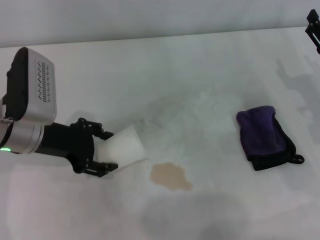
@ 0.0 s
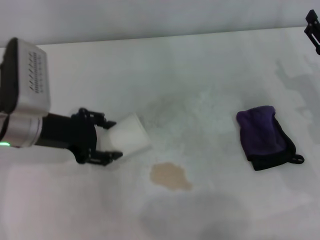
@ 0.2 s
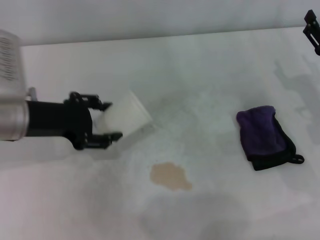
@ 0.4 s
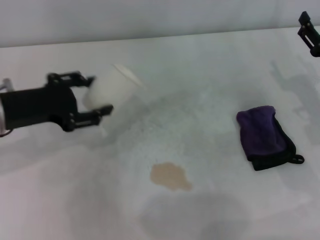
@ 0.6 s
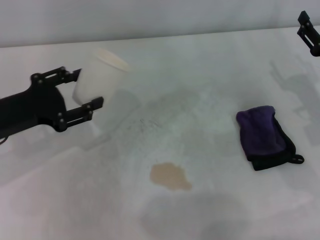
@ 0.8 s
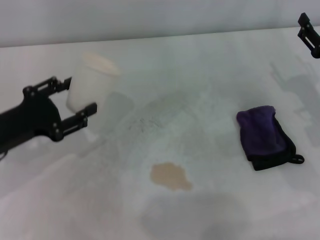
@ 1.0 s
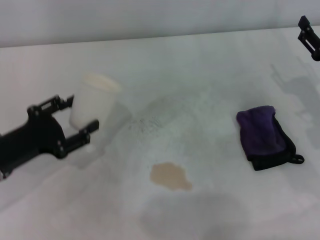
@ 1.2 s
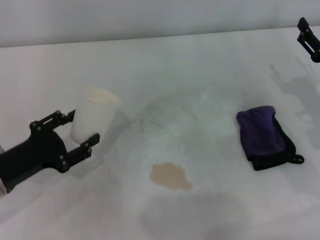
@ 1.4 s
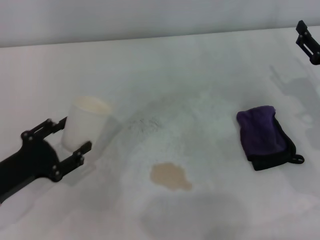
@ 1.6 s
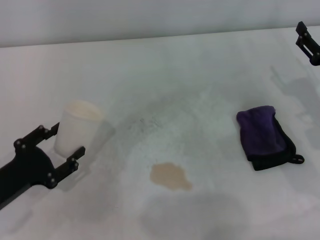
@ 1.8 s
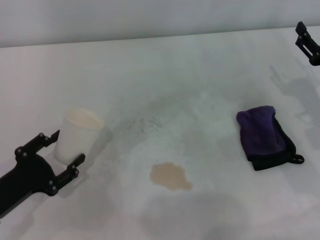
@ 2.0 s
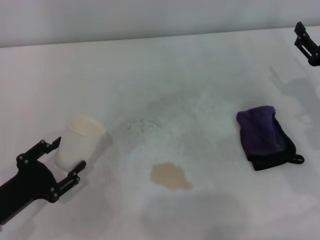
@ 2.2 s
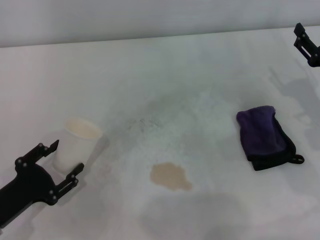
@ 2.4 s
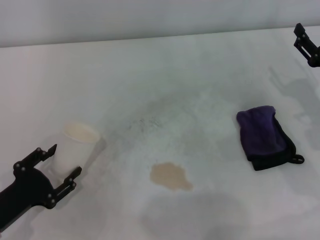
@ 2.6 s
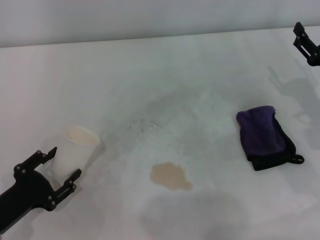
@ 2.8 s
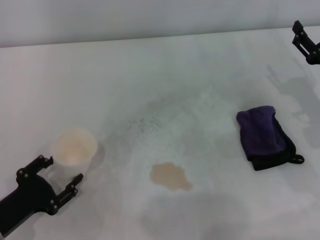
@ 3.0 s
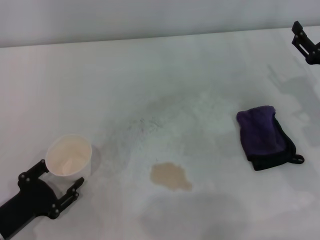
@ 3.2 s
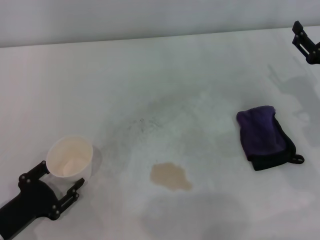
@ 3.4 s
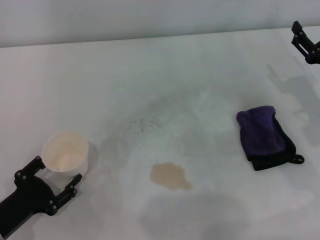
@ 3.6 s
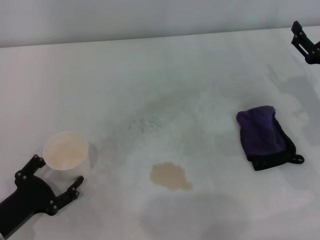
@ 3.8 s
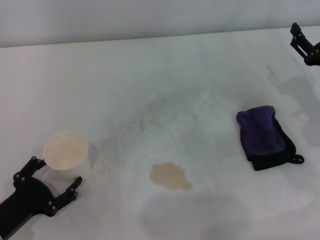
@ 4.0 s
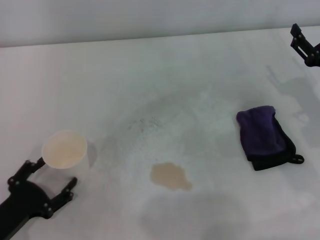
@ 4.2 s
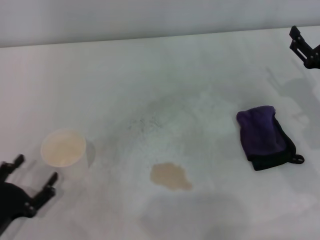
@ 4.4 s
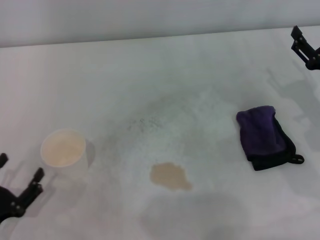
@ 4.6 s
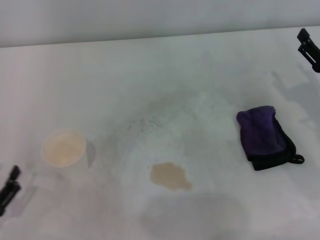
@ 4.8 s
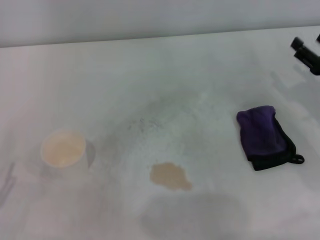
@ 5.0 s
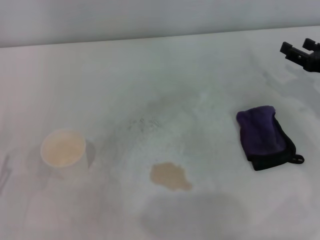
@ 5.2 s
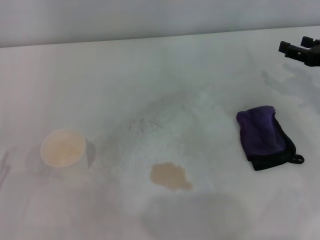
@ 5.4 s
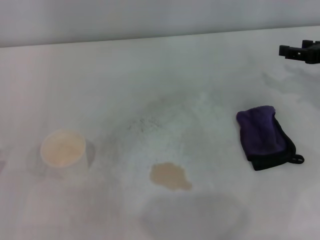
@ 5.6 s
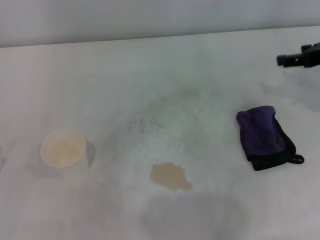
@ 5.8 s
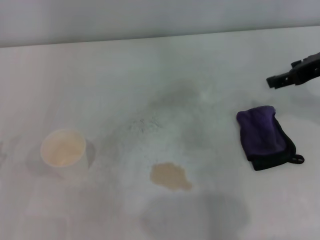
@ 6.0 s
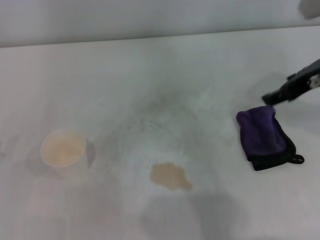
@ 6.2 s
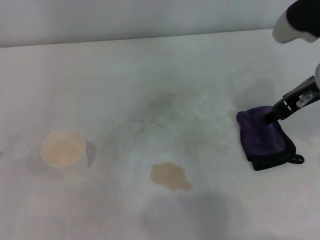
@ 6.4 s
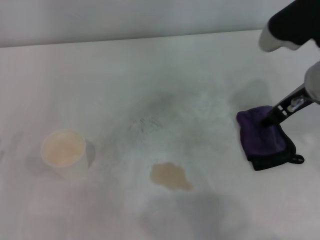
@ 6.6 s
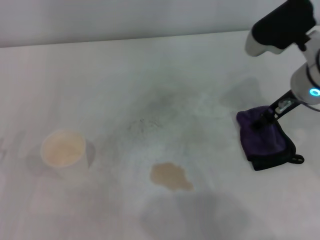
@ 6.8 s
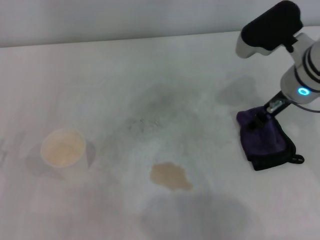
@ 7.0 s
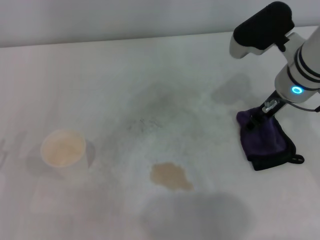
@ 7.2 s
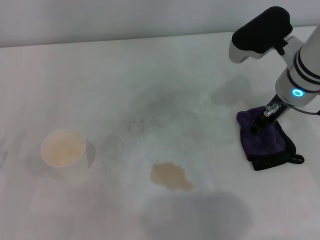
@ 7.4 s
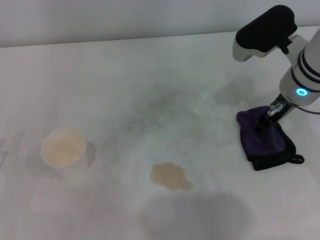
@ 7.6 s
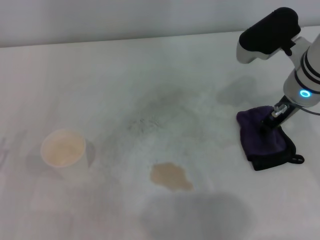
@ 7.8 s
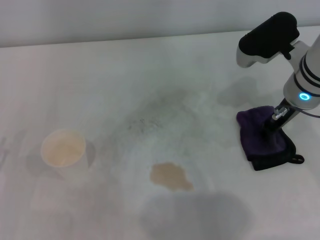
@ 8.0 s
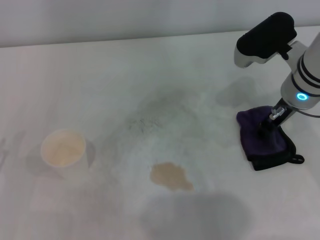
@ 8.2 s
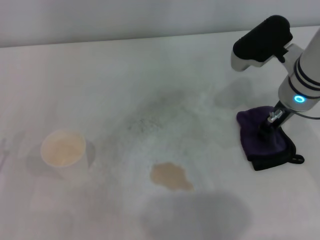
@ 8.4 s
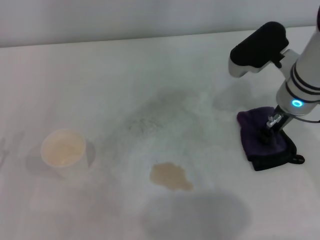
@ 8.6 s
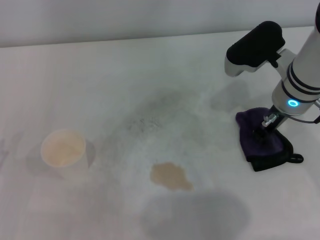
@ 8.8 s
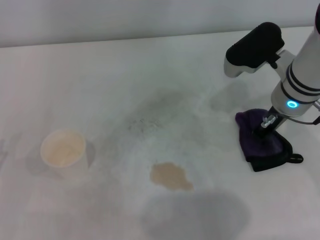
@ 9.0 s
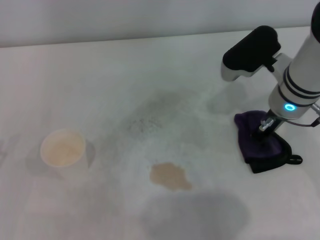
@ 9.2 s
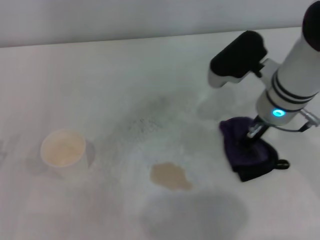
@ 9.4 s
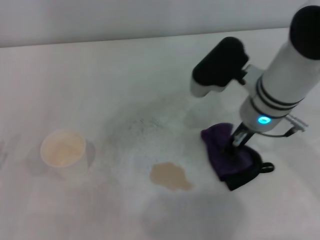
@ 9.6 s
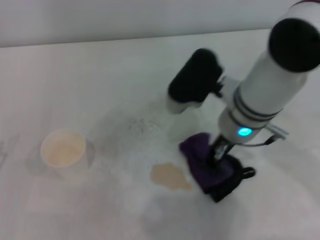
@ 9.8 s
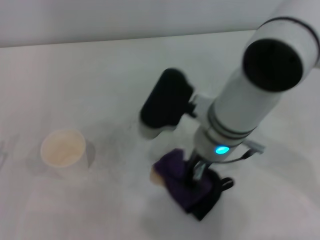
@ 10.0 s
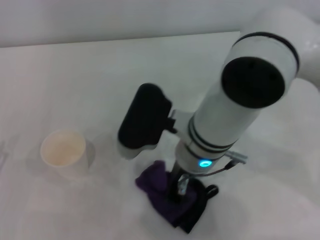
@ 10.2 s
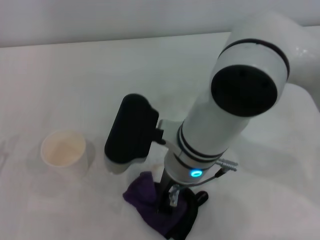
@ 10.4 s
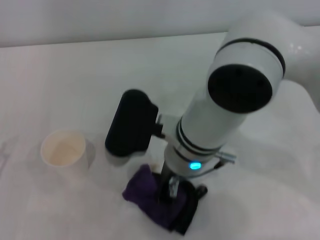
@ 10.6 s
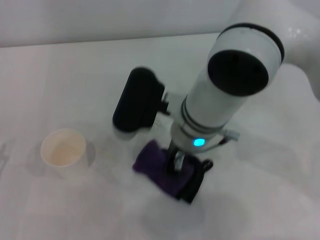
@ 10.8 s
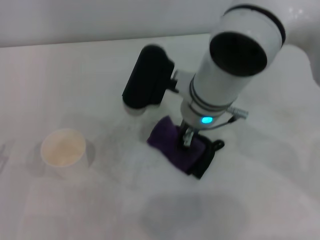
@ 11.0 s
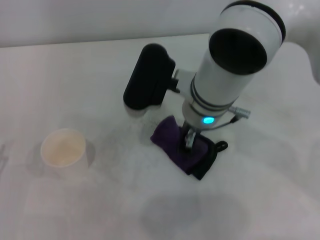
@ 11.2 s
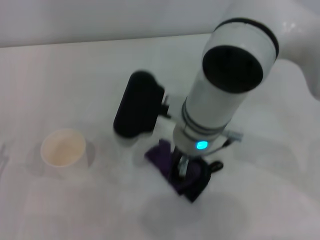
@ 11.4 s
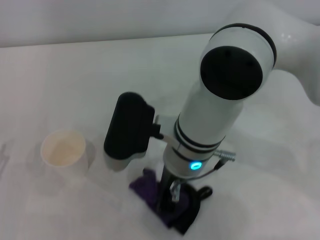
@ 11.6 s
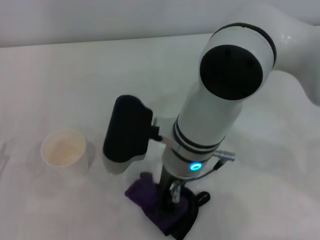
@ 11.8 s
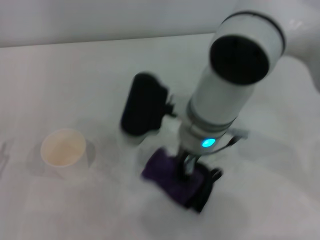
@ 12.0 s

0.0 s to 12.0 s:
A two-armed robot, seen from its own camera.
Step, 0.0 to 3.8 s: Stand the paper cup upright with the left gripper.
Step, 4.0 to 8.6 s: Grasp the rag with the right gripper.
0.0 to 1.6 s: The left gripper travels backward, downward and to the left by some 15 cm, and closes its fingers.
1.6 to 3.0 s: The left gripper moves some 5 cm.
3.0 to 4.4 s: The left gripper opens.
4.4 to 6.0 s: The right gripper heads upward, covering approximately 15 cm, while the left gripper changes place by about 5 cm.
6.0 to 7.6 s: The right gripper moves to the left, roughly 10 cm.
7.6 to 9.0 s: The right gripper closes.
9.0 to 10.4 s: The right gripper goes about 20 cm to the left and backward.

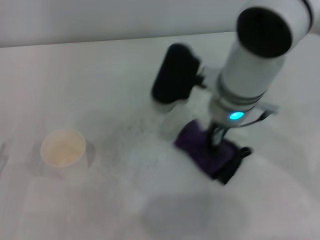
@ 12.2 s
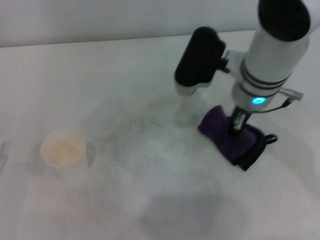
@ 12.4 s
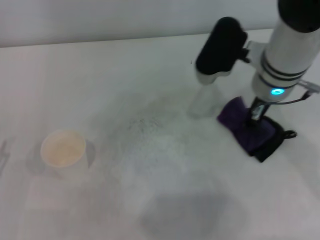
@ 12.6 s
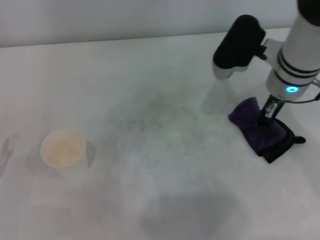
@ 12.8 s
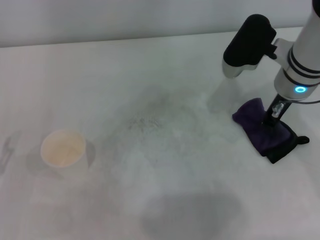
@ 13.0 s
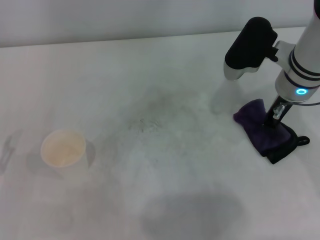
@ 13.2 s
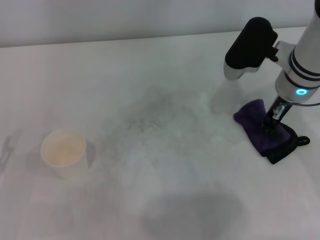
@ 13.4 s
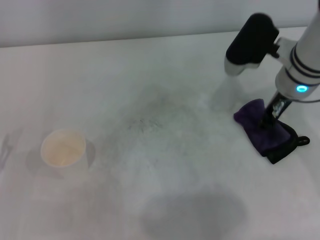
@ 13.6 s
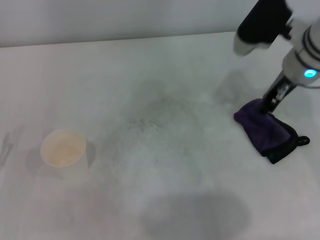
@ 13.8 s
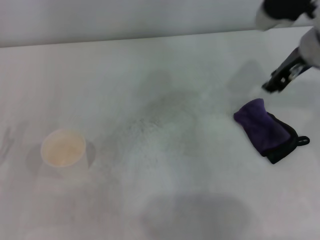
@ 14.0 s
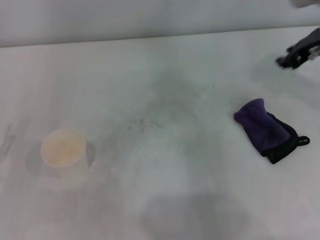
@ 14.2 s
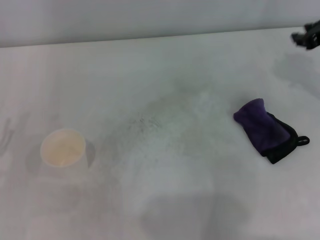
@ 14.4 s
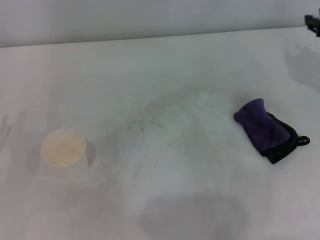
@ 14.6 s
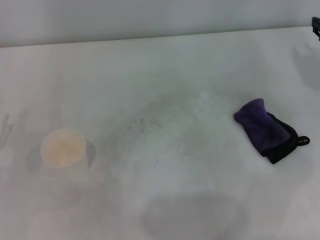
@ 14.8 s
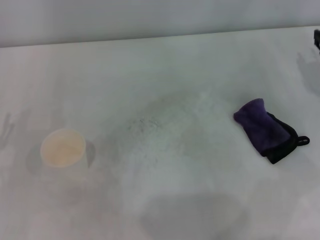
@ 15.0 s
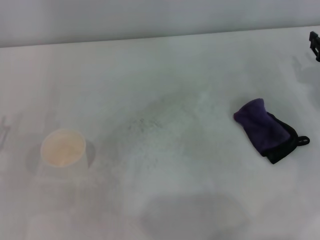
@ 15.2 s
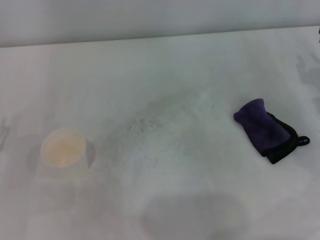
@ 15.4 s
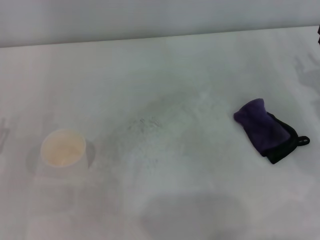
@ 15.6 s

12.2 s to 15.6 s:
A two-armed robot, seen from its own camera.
Step, 12.6 to 13.6 s: Place the rag on the table with the right gripper.
12.2 to 13.8 s: The right gripper is displaced to the right by about 10 cm.
13.8 to 15.6 s: The right gripper is displaced to the right and downward by some 20 cm.
